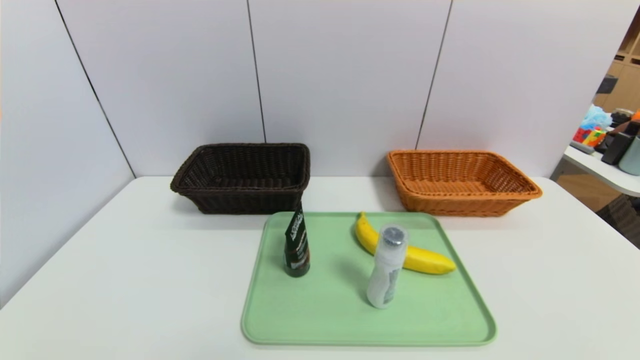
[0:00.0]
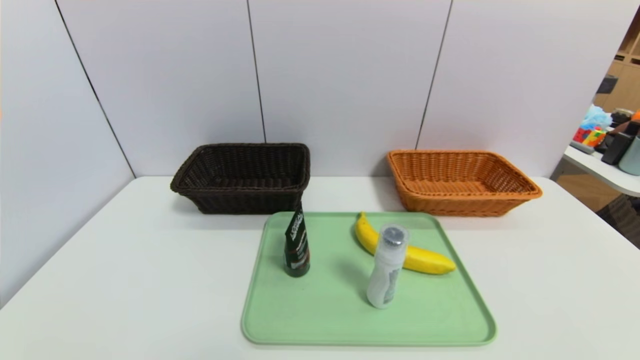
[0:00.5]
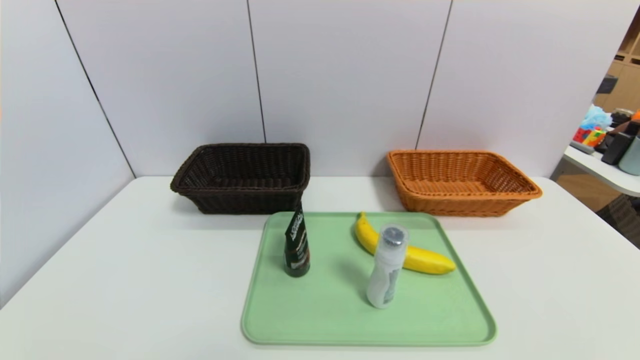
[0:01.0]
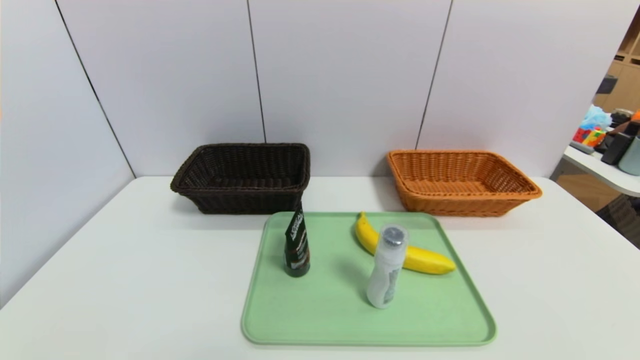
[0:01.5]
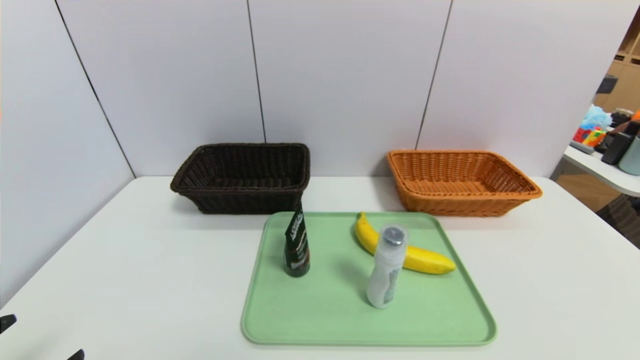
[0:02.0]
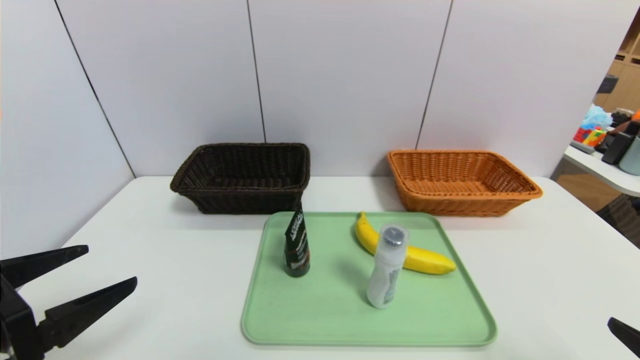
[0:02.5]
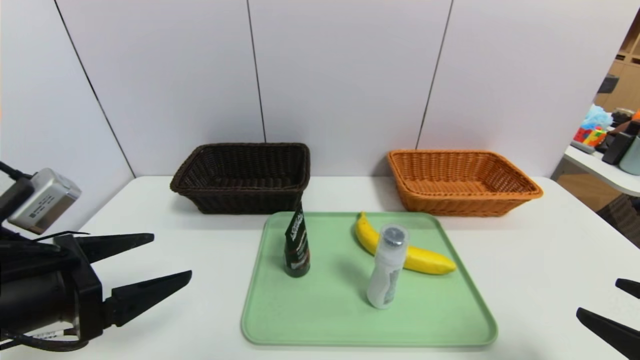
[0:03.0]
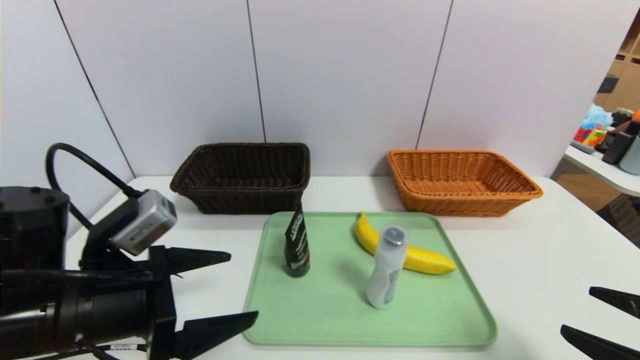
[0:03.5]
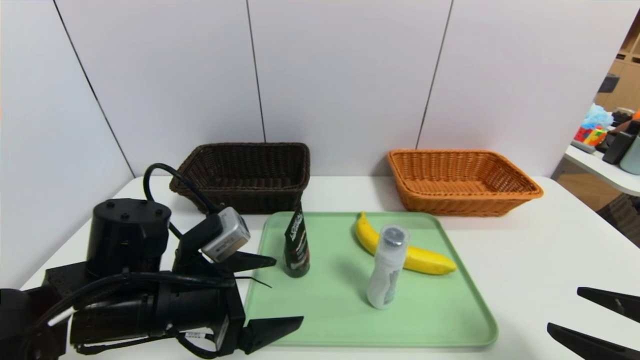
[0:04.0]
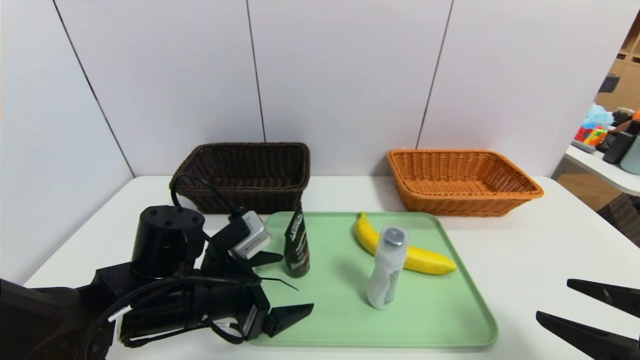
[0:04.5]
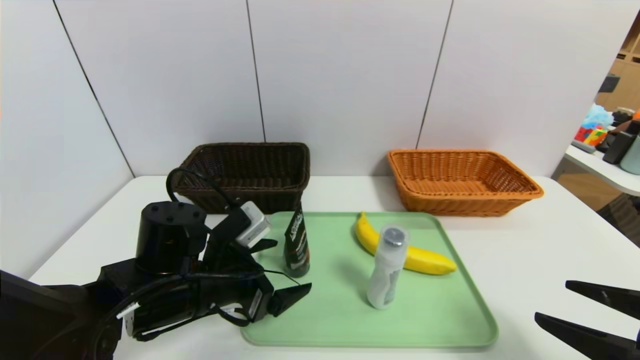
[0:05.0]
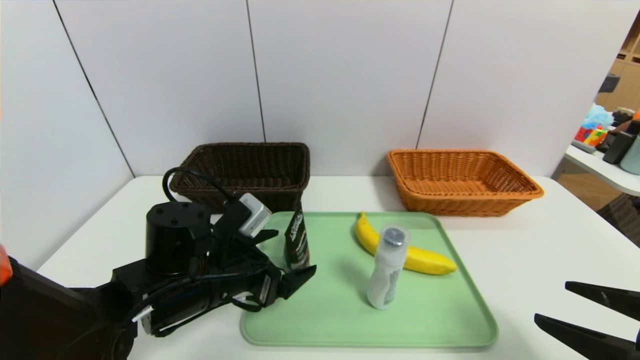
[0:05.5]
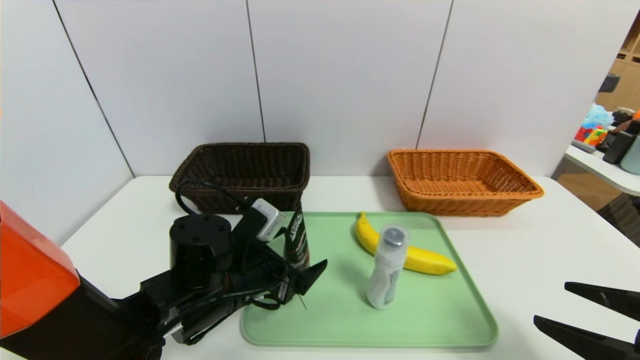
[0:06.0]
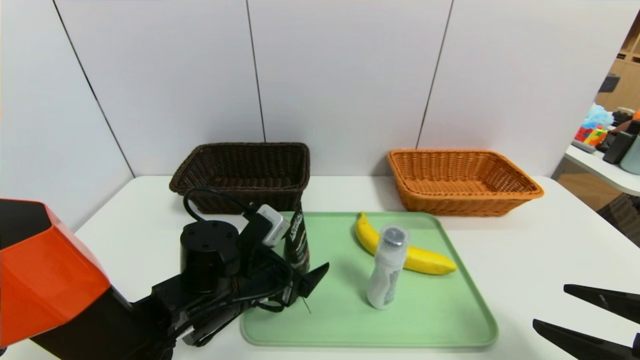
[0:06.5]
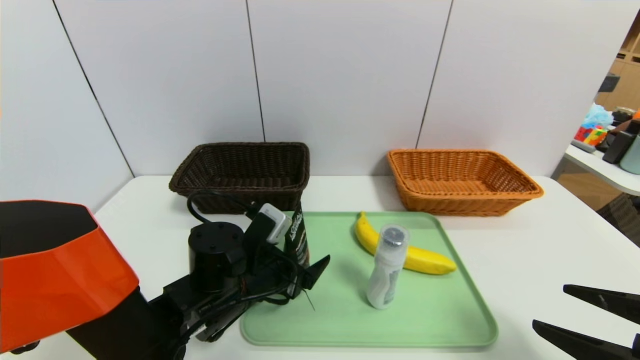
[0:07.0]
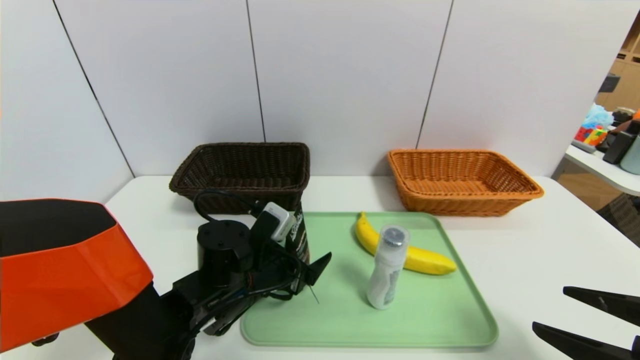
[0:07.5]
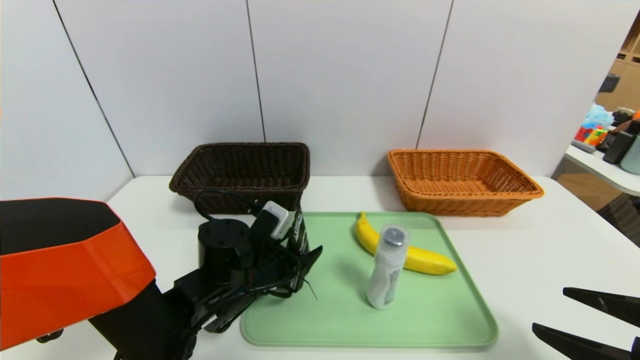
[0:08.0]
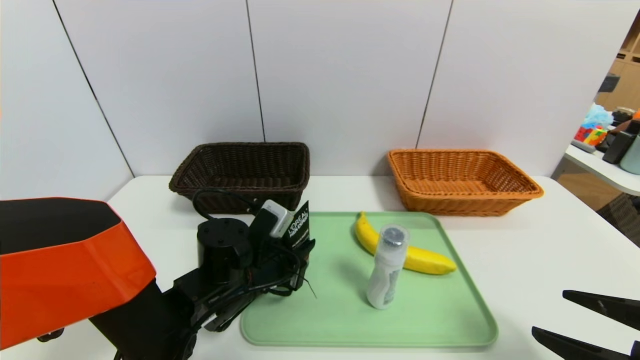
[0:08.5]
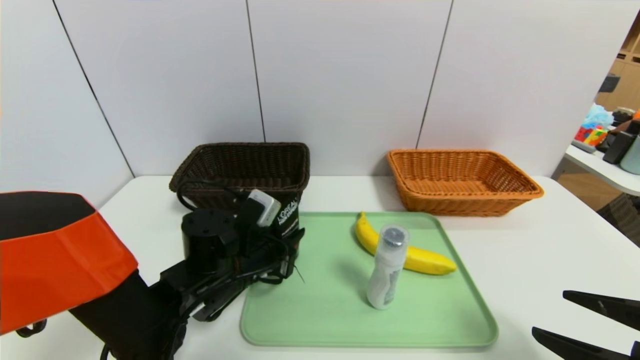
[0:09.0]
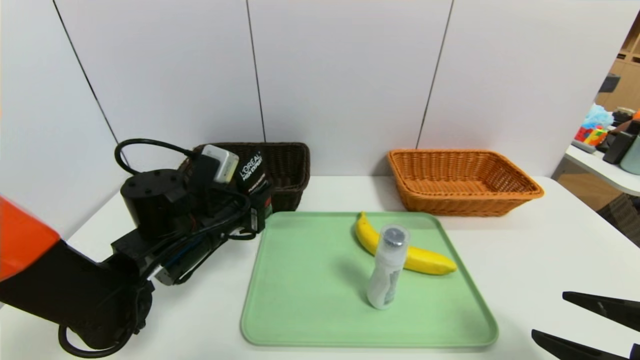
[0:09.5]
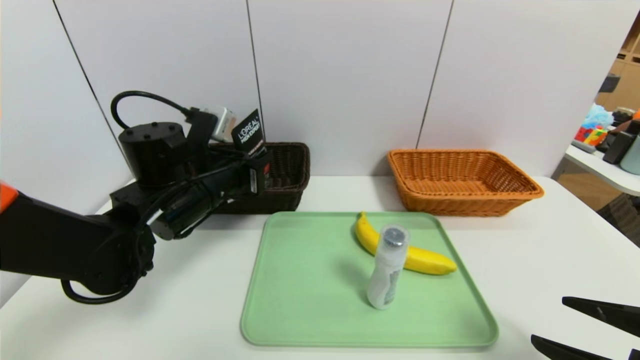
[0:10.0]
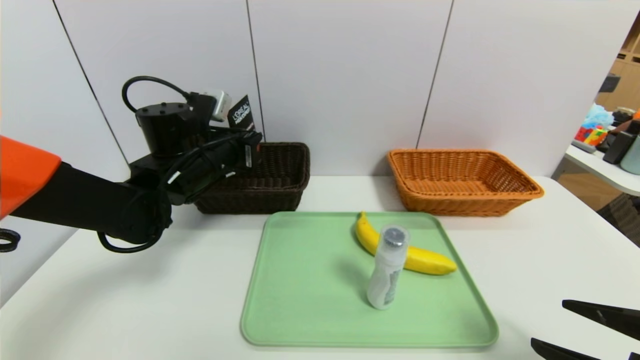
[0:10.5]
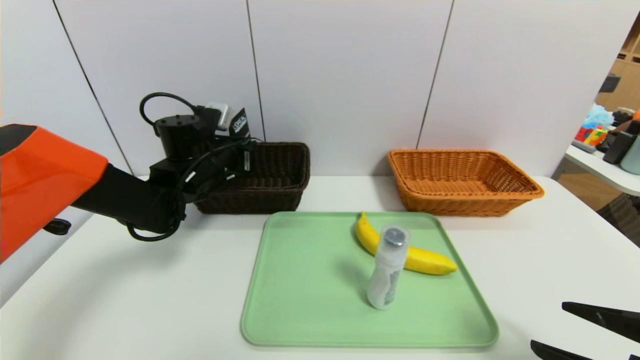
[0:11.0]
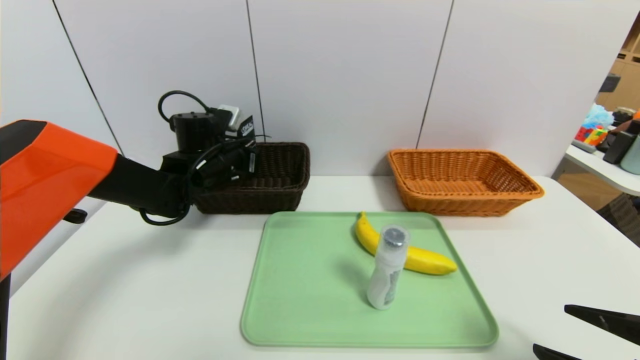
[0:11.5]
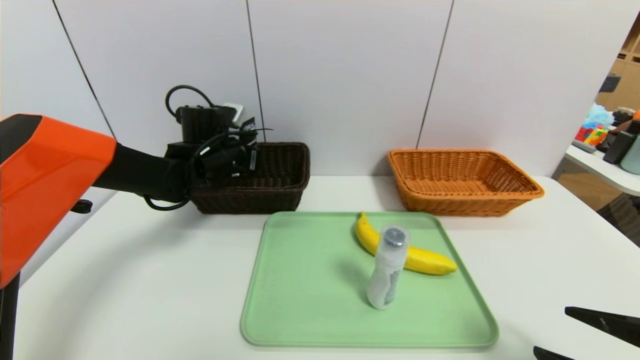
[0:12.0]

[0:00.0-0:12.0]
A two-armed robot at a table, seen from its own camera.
Task of the whole recording: place the food in the right basket with the right gripper, and place the non food items in the left basket with the left gripper.
0:02.0 to 0:04.0: The right gripper travels forward by about 10 cm. The left gripper goes roughly 20 cm forward and to the right.
0:04.0 to 0:06.0: The left gripper moves roughly 5 cm.
0:06.0 to 0:08.0: The left gripper closes.
0:08.0 to 0:10.0: The left gripper moves upward and to the left, about 15 cm, and closes its fingers.
0:10.0 to 0:12.0: The left gripper shifts some 15 cm forward.

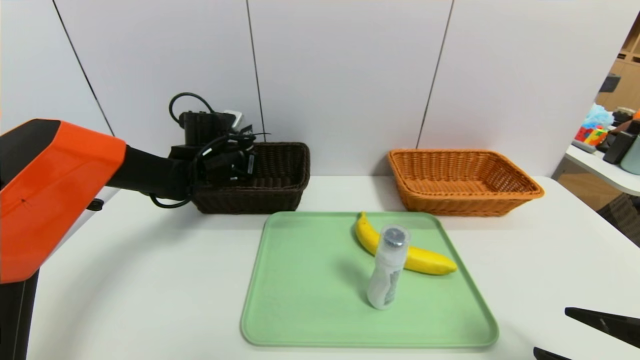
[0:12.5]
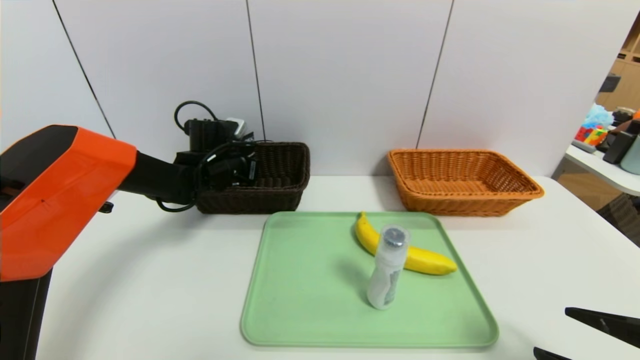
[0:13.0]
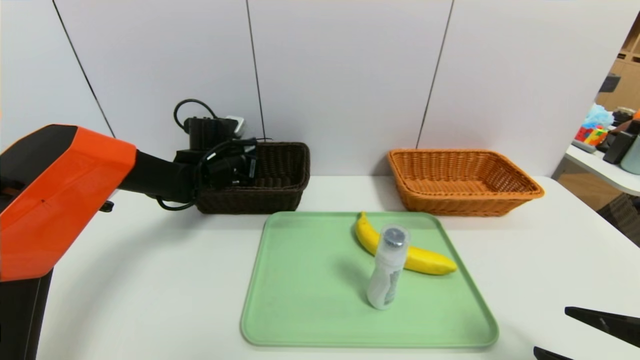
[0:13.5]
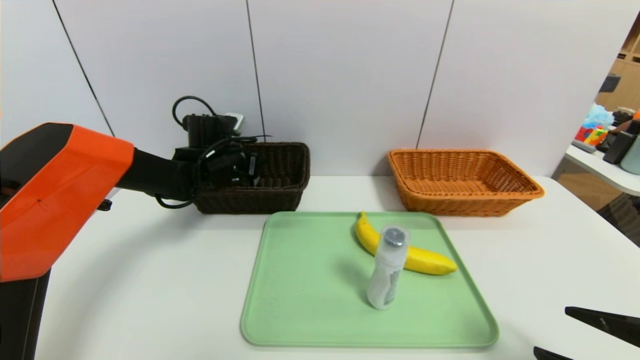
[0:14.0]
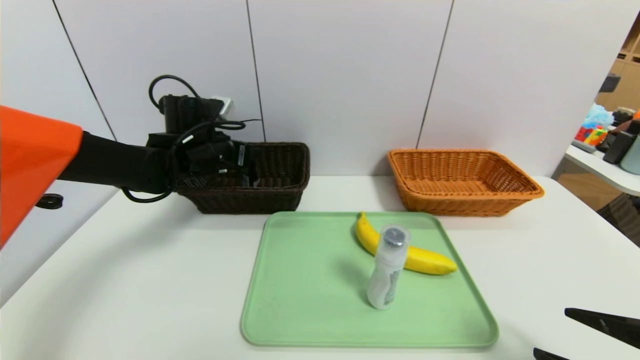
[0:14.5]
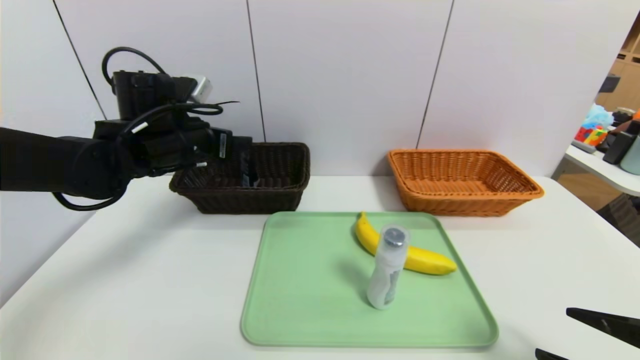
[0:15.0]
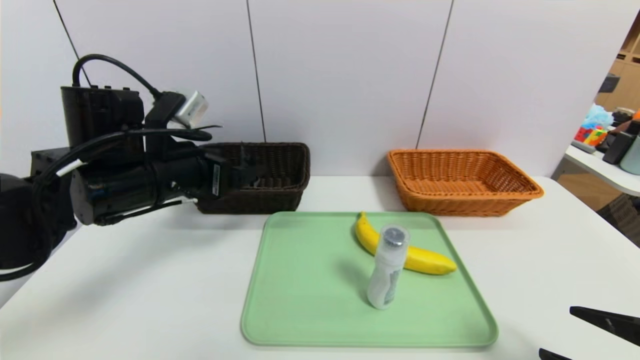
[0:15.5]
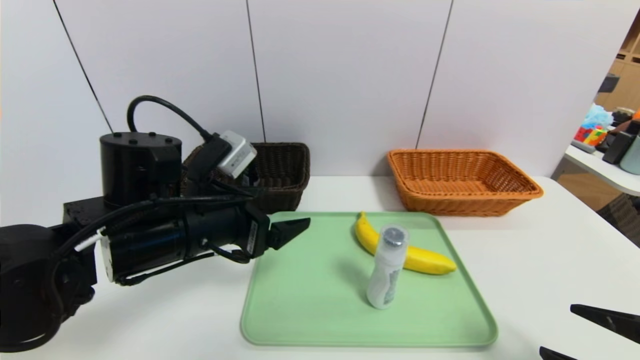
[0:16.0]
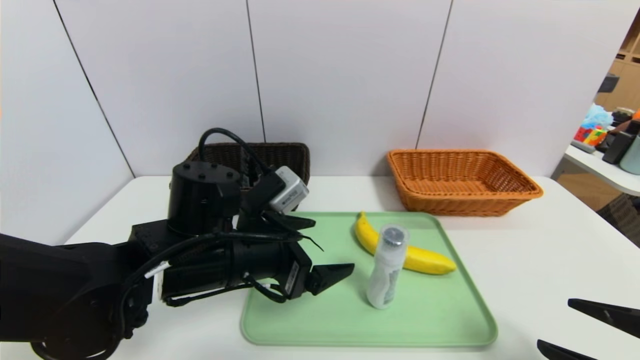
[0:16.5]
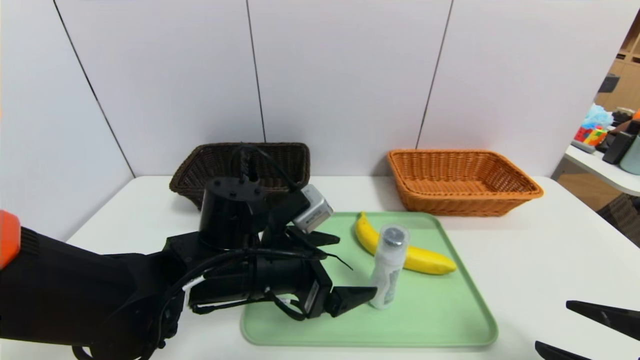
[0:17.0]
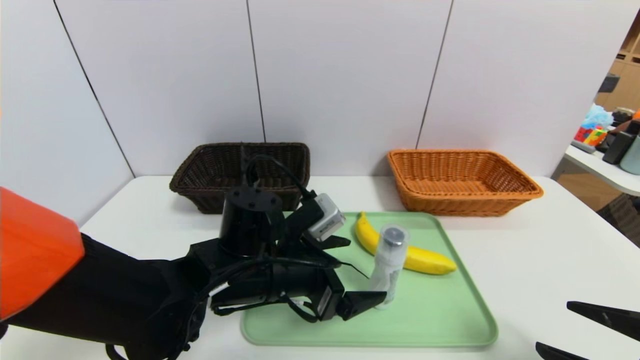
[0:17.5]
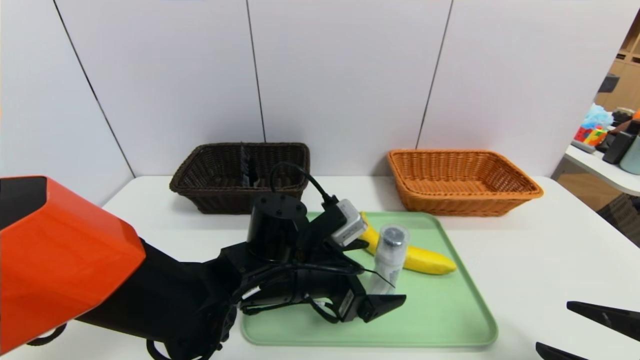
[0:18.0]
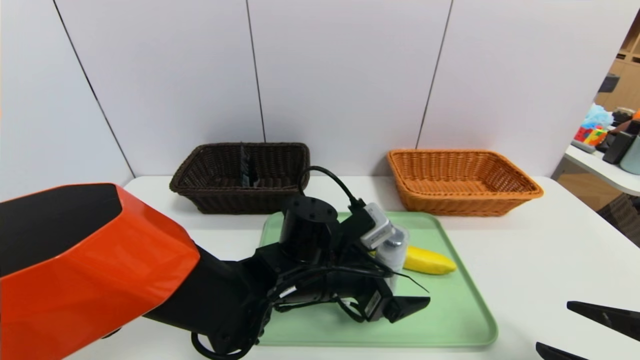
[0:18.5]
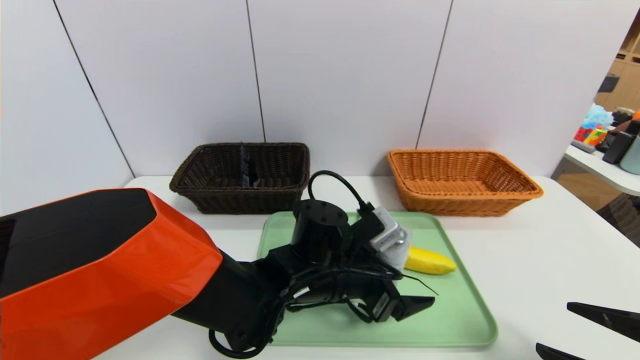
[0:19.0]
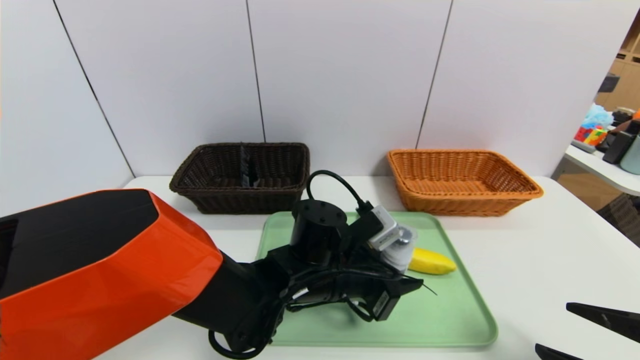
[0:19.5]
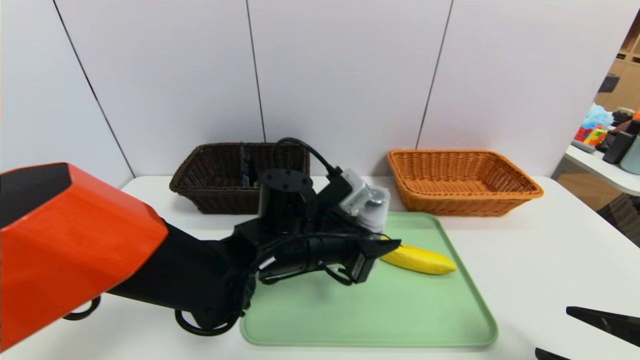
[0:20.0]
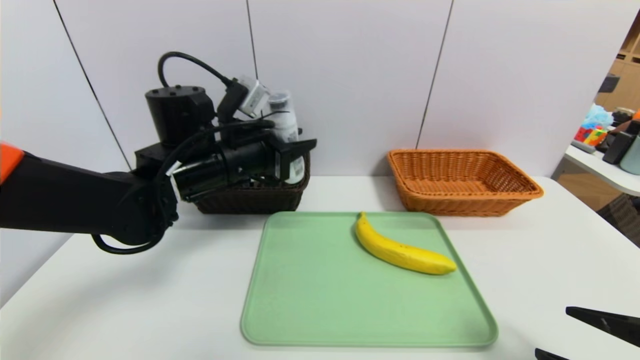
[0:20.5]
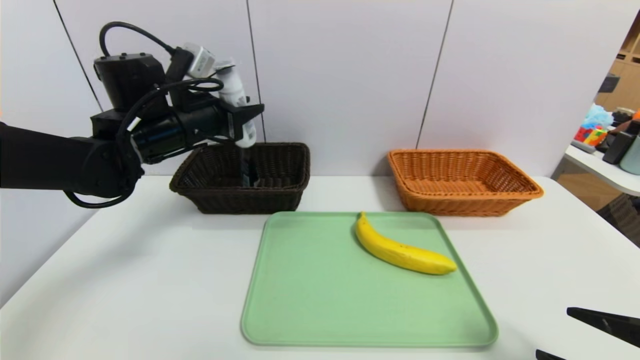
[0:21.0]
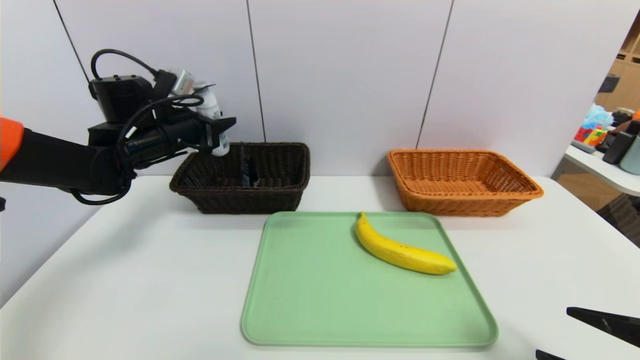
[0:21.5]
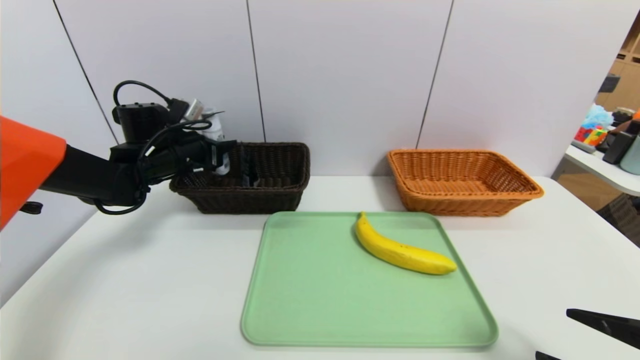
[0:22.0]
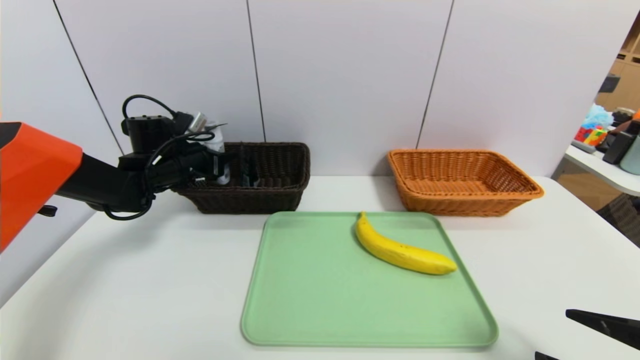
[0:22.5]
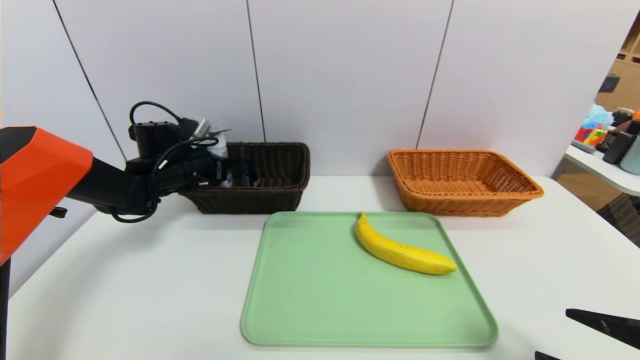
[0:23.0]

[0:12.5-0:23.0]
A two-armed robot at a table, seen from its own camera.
Task of the whole recording: place the food in the right basket with the right gripper, and place the non food items in the left basket with the left gripper.
0:12.5 to 0:14.5: The left gripper opens its fingers.
0:14.5 to 0:16.5: The left gripper is displaced backward and to the right by roughly 20 cm.
0:16.5 to 0:19.0: The left gripper travels to the right and downward by some 15 cm.
0:19.0 to 0:21.0: The left gripper shifts roughly 30 cm to the left, upward and forward, and closes up.
0:21.0 to 0:23.0: The left gripper moves downward, forward and to the left, approximately 15 cm.
